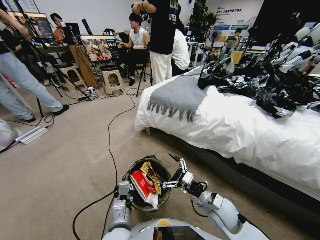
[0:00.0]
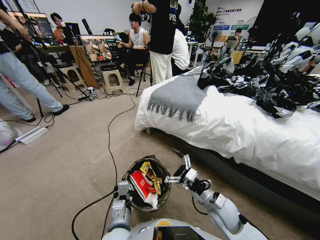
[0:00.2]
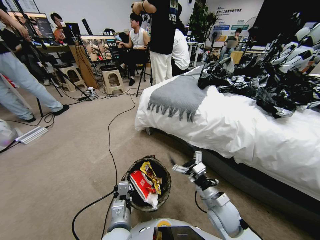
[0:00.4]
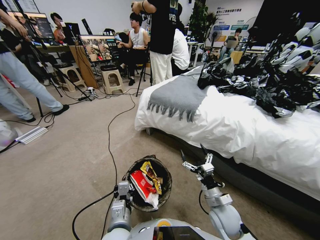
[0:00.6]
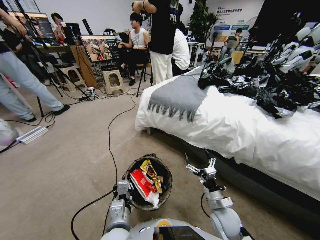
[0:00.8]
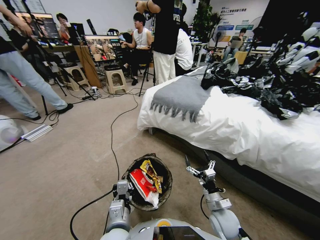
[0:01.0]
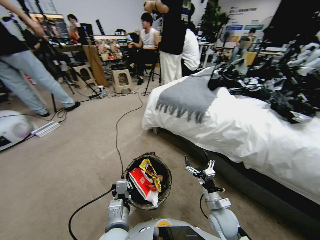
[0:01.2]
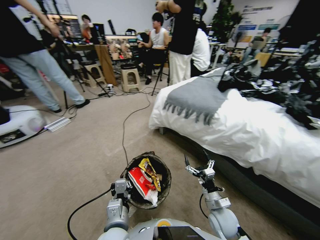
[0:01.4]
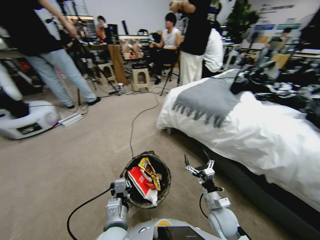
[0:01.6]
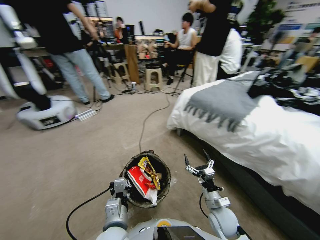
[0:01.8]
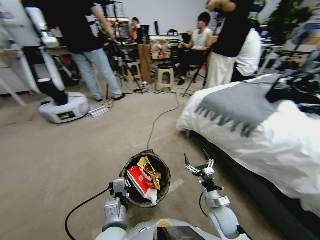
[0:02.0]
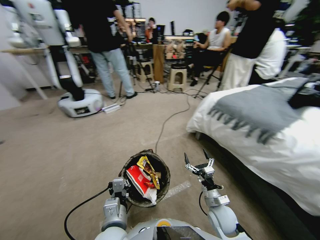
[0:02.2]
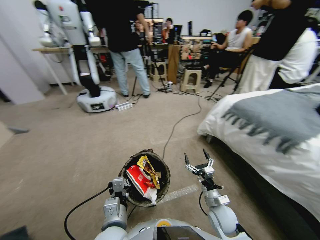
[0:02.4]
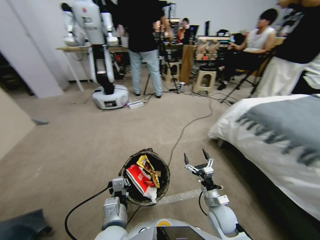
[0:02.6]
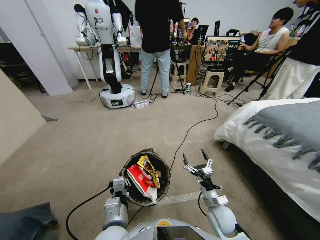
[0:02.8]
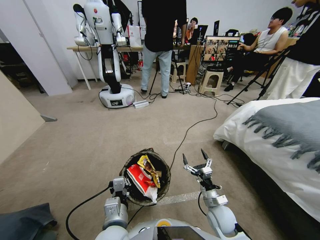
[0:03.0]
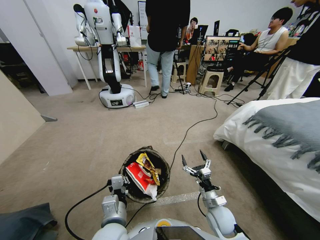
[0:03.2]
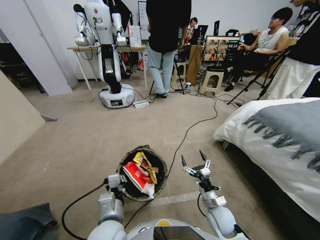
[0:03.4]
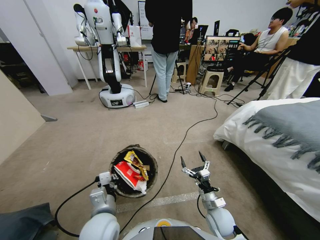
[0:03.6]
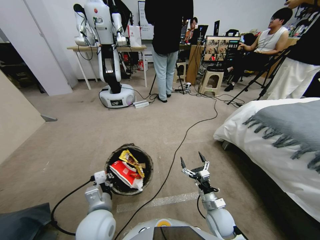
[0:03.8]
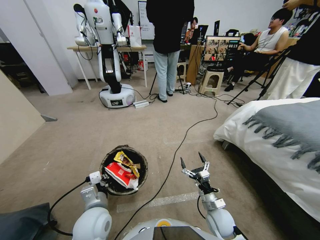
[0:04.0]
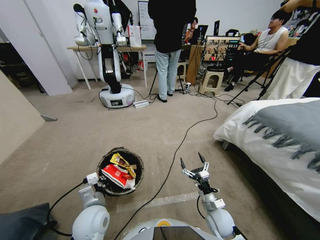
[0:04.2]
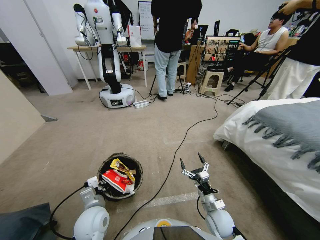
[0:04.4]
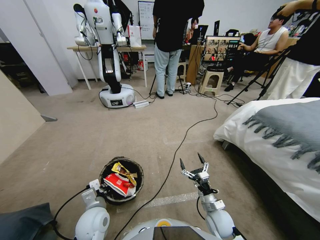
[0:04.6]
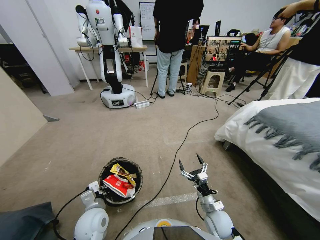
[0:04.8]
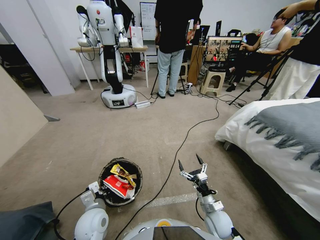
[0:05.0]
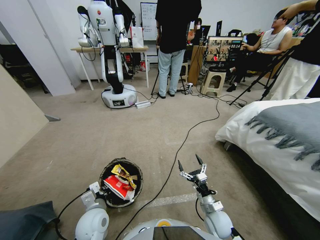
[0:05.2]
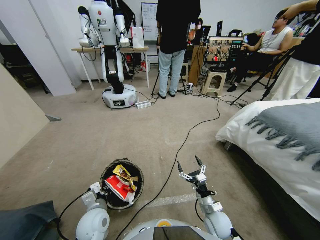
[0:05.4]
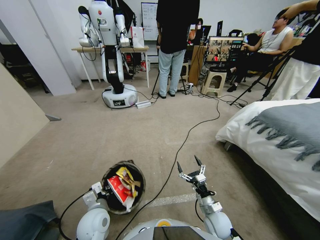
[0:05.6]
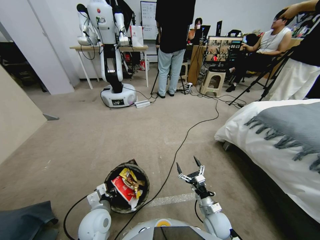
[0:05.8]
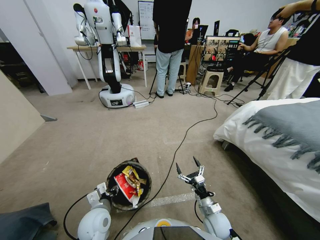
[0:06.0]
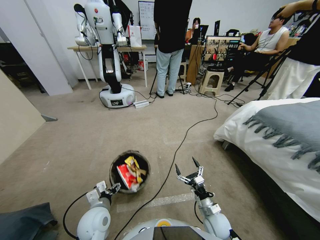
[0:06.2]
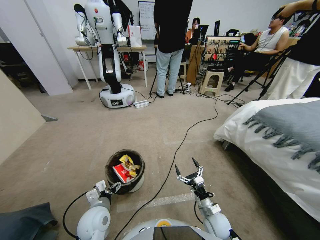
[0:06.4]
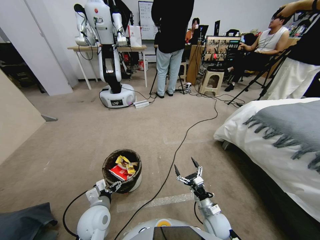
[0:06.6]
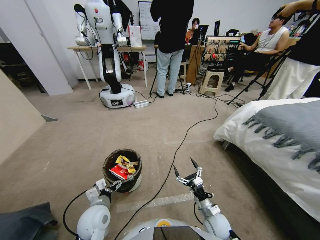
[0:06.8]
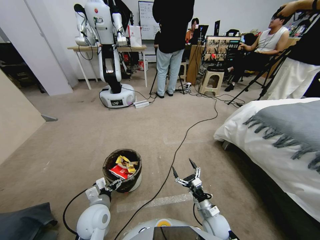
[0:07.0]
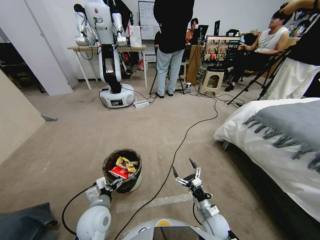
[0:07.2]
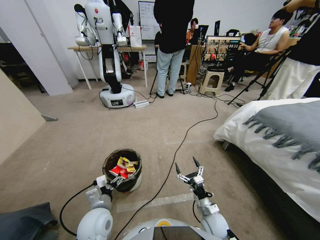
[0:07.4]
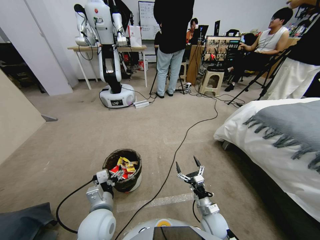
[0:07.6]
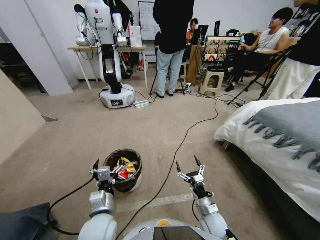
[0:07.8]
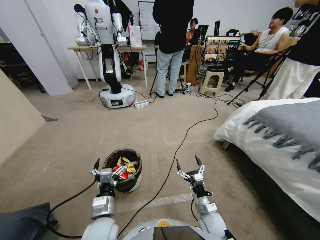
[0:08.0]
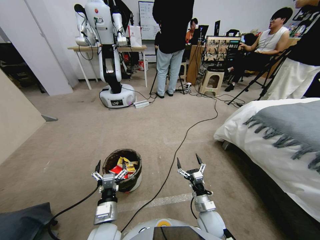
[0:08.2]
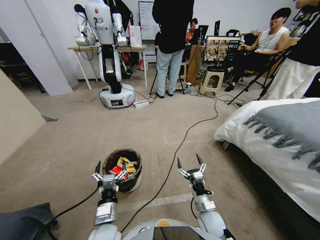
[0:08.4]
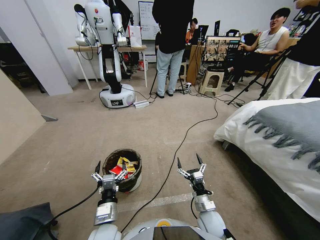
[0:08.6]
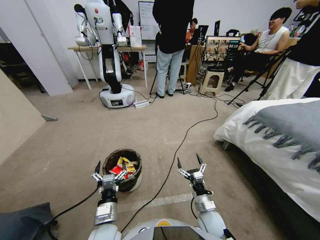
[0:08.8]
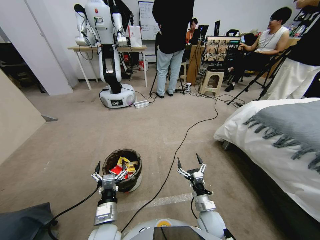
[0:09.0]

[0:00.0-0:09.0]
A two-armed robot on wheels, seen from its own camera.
Task of the whole recording: Pick up the trash bin, then pick up the garbage from the floor and place it into the trash bin.
0:00.0 to 0:01.6: The right gripper is displaced downward by approximately 5 cm.
0:03.0 to 0:04.4: The left gripper moves to the left, forward and downward, roughly 15 cm.
0:04.4 to 0:06.0: The left gripper opens its fingers.
0:06.0 to 0:07.6: The left gripper heads upward, covering roughly 5 cm.
0:07.6 to 0:09.0: The left gripper shifts by about 5 cm.
